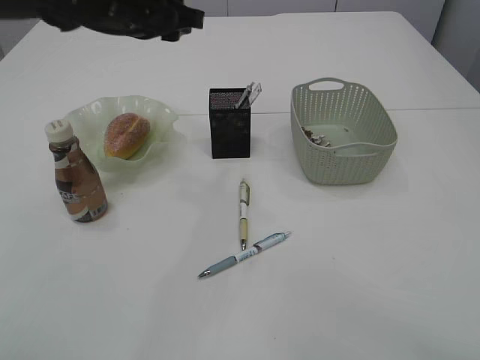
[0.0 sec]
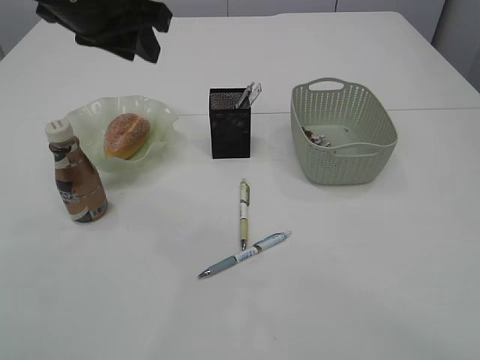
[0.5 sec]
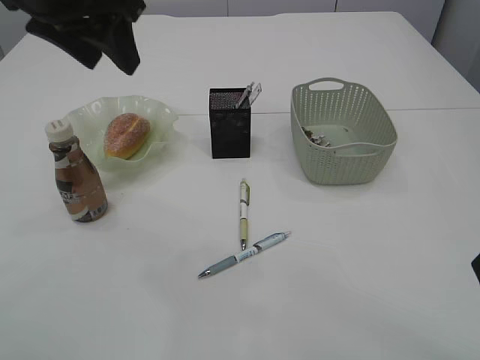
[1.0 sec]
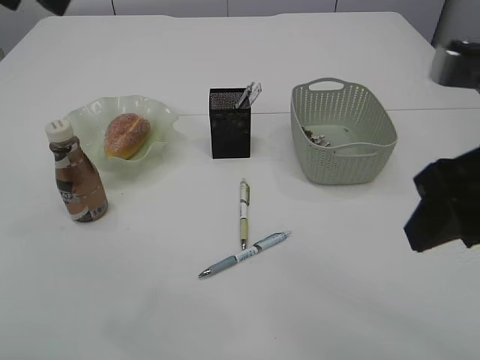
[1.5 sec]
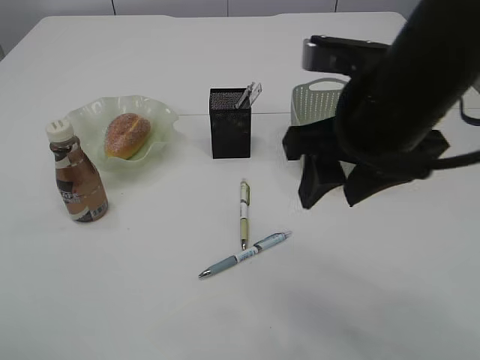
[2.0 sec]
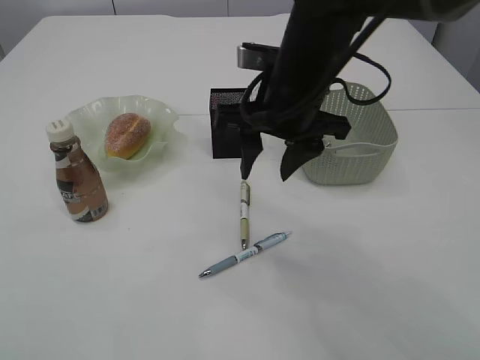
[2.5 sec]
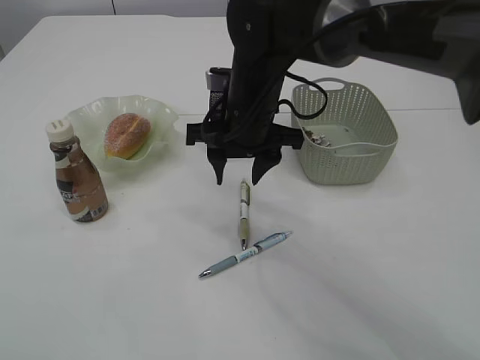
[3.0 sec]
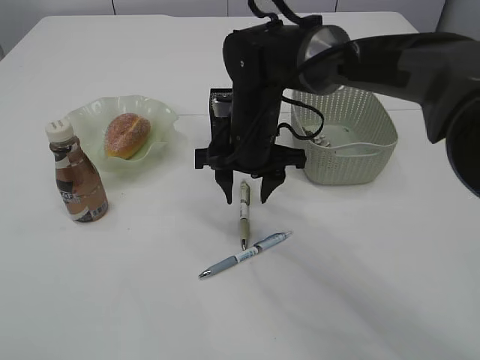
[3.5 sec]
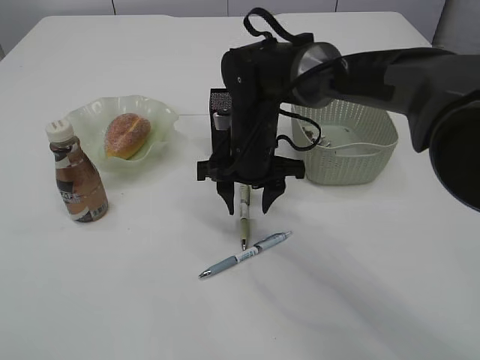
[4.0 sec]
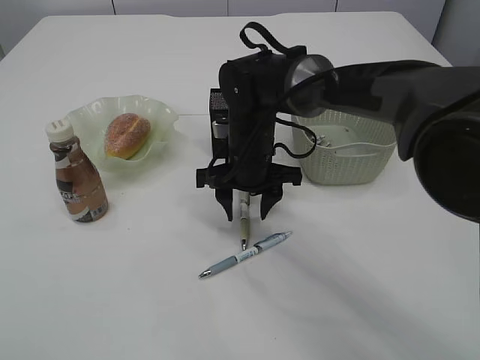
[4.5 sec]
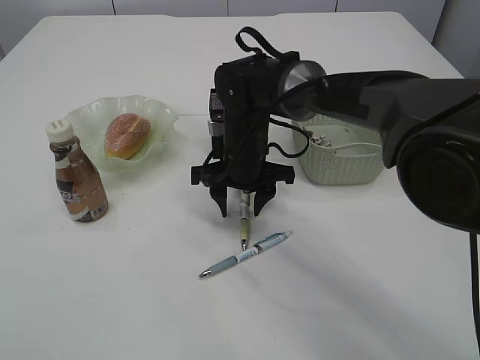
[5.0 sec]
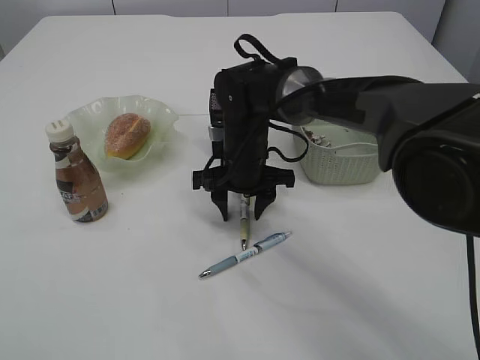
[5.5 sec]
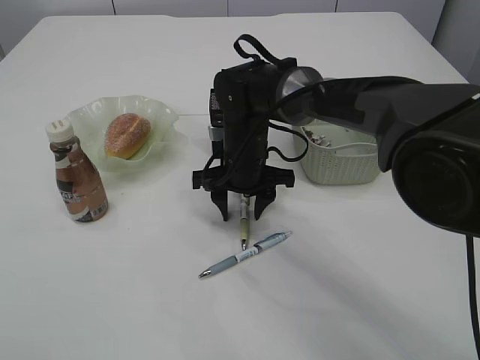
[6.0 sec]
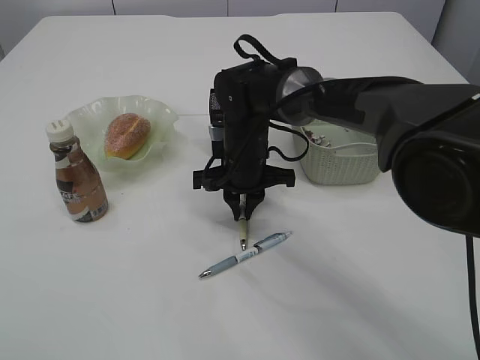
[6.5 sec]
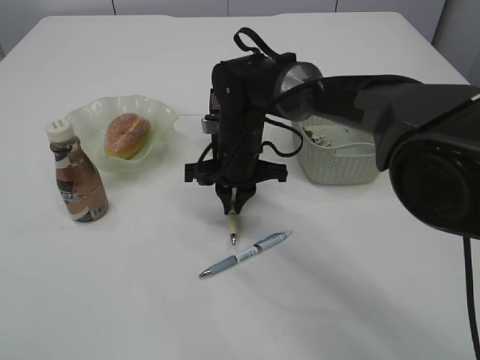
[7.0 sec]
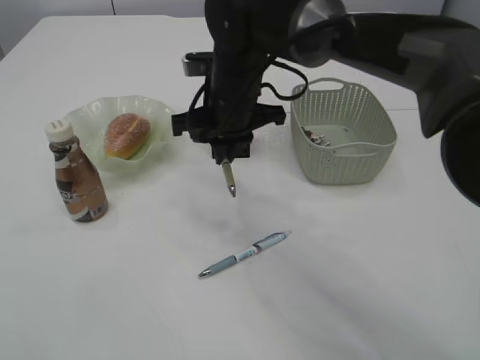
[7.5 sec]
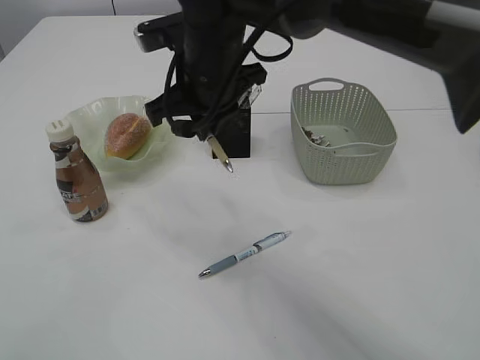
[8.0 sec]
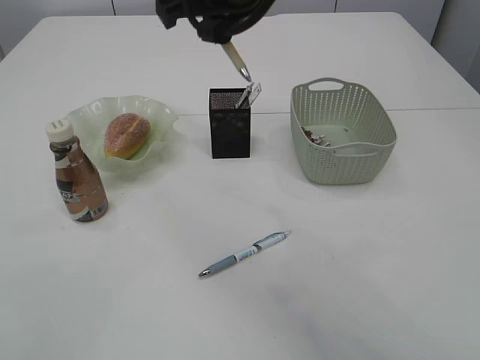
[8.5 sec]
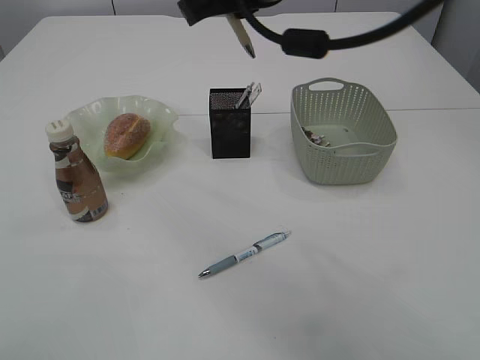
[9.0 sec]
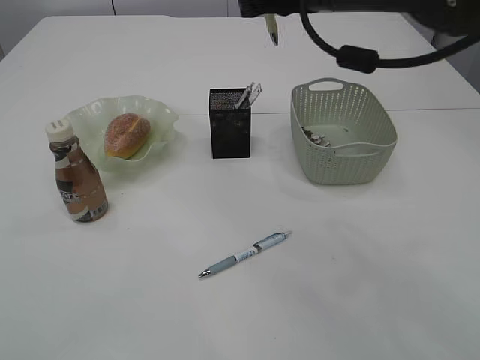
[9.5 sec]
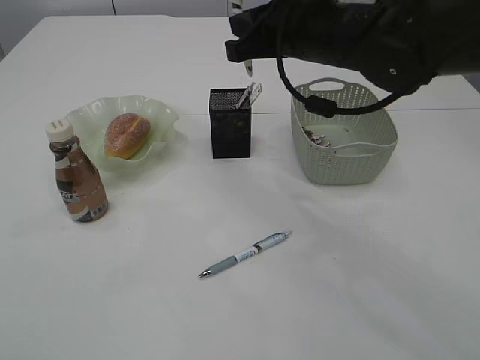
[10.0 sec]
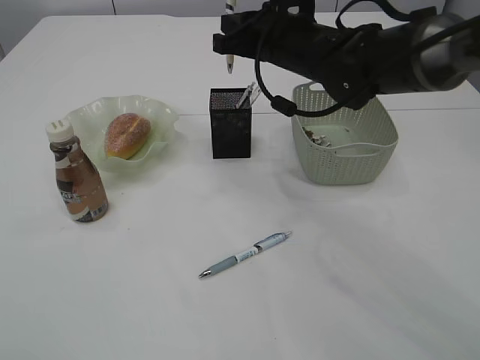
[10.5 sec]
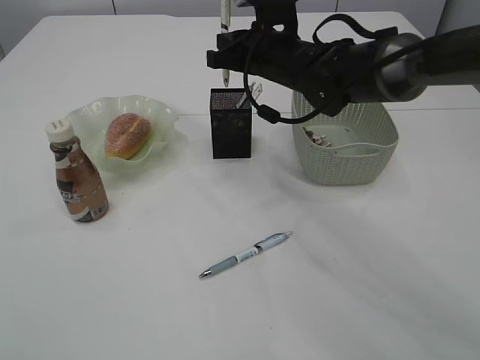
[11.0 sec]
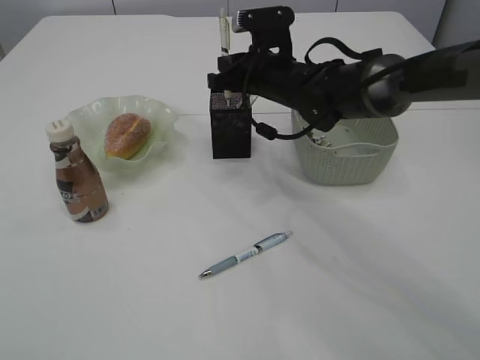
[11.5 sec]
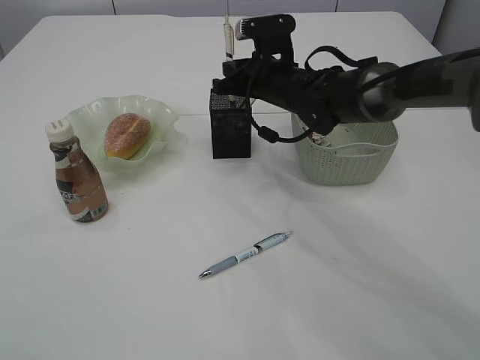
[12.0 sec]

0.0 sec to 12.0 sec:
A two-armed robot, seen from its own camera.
Step, 0.0 sec to 7.0 sec: Pick up the pen with right arm.
0.0 sec to 2.0 sec: The right gripper is displaced forward and to the left by some 15 cm. Meanwhile the left gripper shifts roughly 30 cm backward, to the left and upward.
2.0 sec to 4.0 sec: The right gripper is displaced forward, downward and to the left by approximately 25 cm; the left gripper moves backward, roughly 10 cm.
4.0 sec to 6.0 sec: The grippers make only small movements.
6.0 sec to 8.0 sec: The right gripper goes some 15 cm upward, and closes its fingers.
8.0 sec to 10.0 sec: The right gripper is displaced to the right by some 10 cm.
10.0 sec to 12.0 sec: The right gripper is displaced downward and forward by roughly 15 cm.

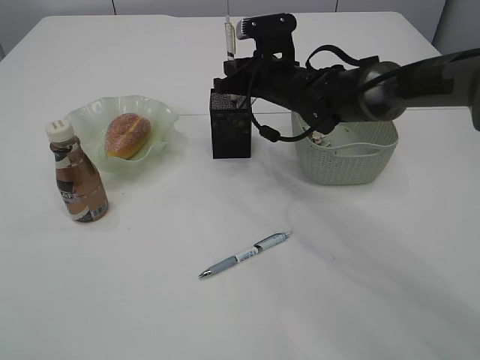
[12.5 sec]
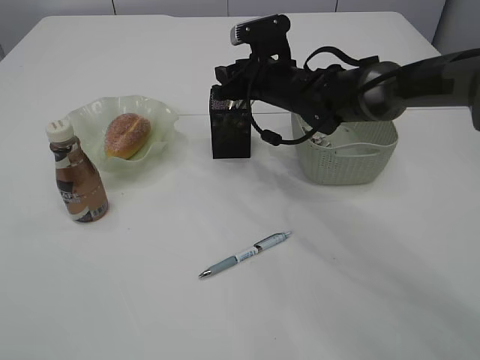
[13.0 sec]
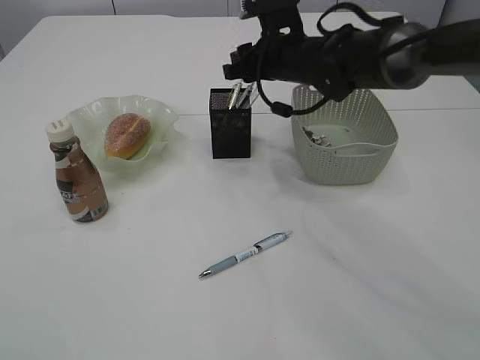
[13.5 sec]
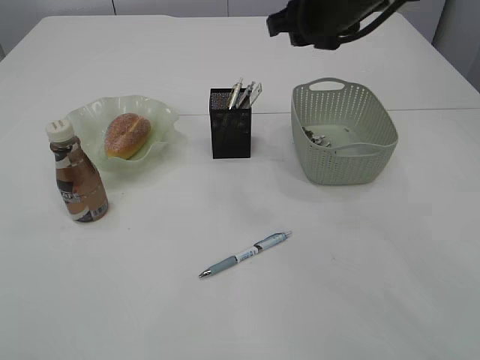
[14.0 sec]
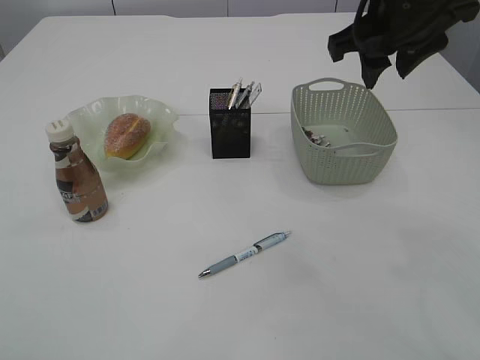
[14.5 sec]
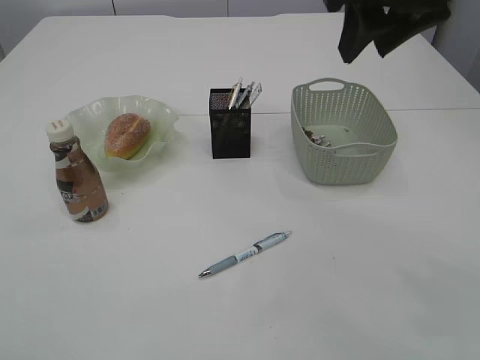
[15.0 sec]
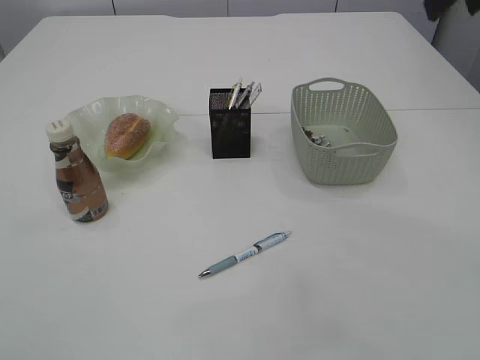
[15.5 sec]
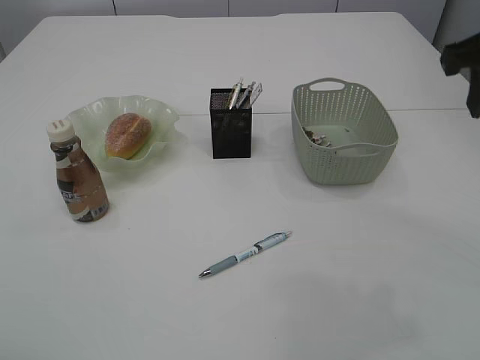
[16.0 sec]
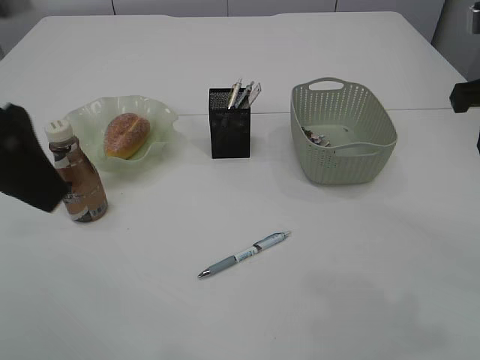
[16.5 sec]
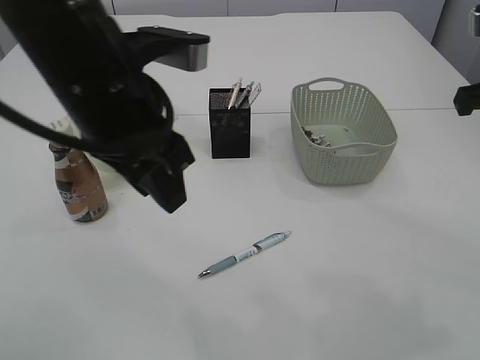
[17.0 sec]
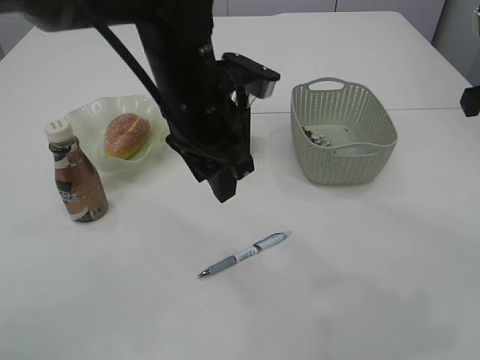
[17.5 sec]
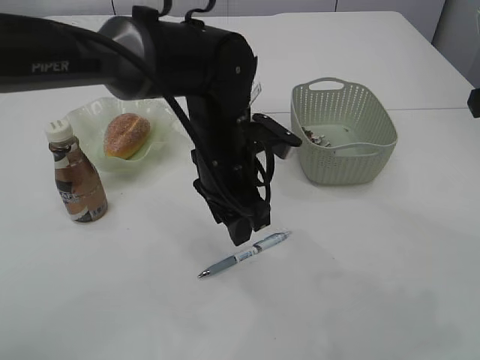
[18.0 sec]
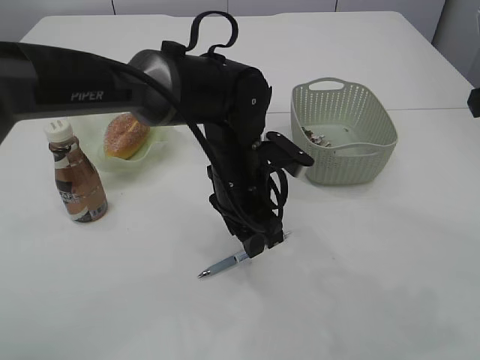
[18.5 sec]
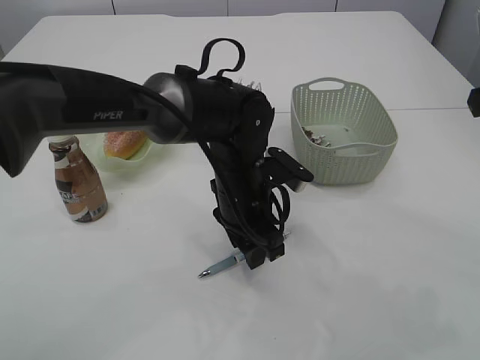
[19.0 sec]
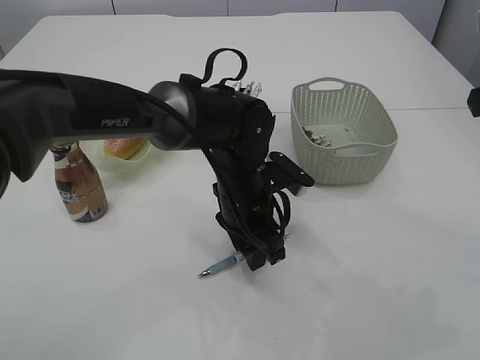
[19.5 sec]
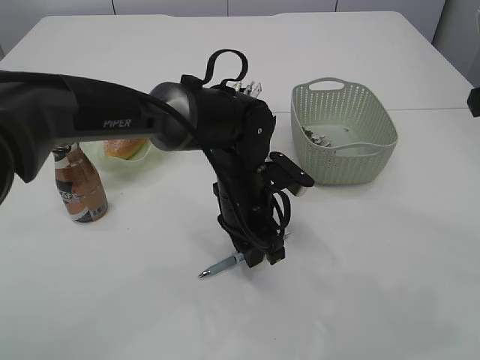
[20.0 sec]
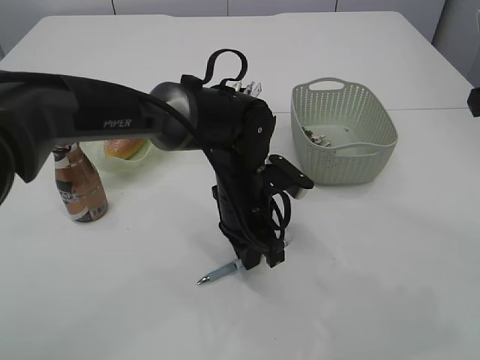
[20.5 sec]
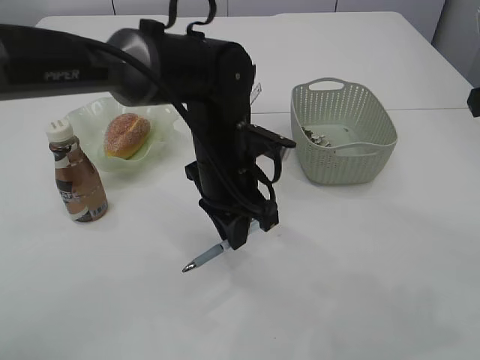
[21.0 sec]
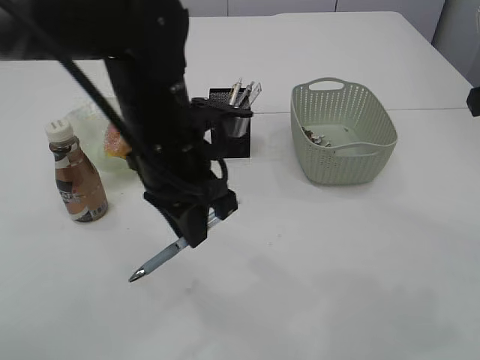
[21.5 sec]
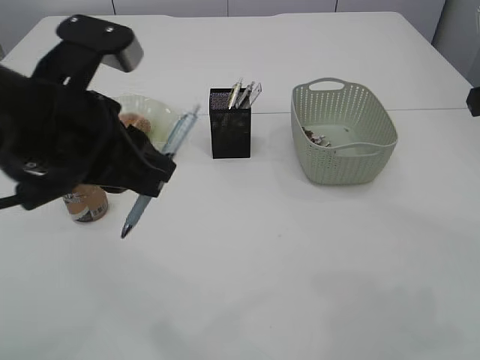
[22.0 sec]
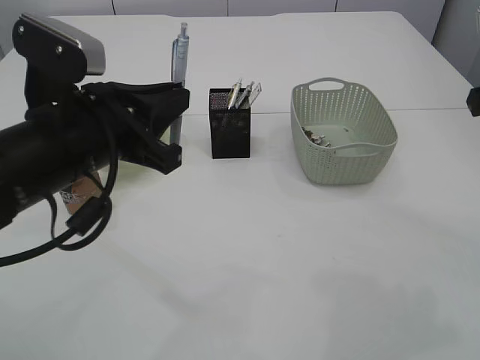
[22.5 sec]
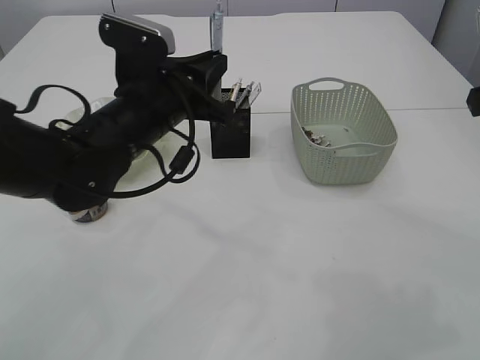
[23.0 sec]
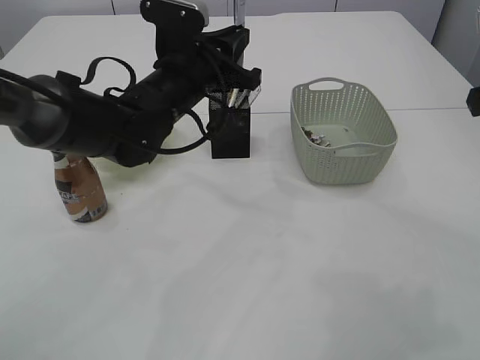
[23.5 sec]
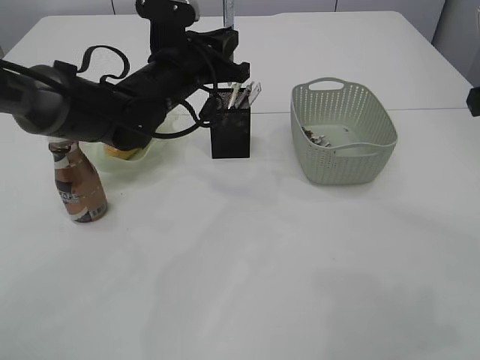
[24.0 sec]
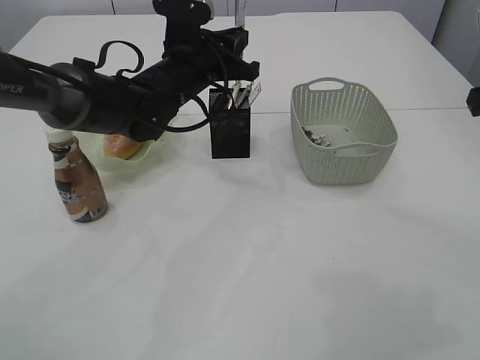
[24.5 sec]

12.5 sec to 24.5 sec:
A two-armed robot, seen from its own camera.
Step, 14.0 sec to 21.0 sec: Pick up the pen with left arm.
12.5 sec to 14.5 sec: The right gripper goes about 20 cm upward, backward and to the right, and opens up.
14.5 sec to 16.5 sec: The right gripper heads to the right and backward, covering approximately 10 cm. Meanwhile the left gripper is displaced forward, to the right and downward by about 15 cm.
16.5 sec to 18.5 sec: The left gripper moves downward, to the right and forward, roughly 30 cm.
18.5 sec to 20.5 sec: The left gripper closes.
20.5 sec to 22.5 sec: The left gripper travels to the left, upward and backward by some 20 cm.
22.5 sec to 24.5 sec: The left gripper heads forward and to the right, covering some 20 cm.

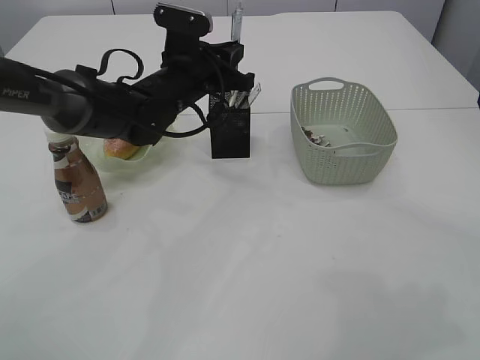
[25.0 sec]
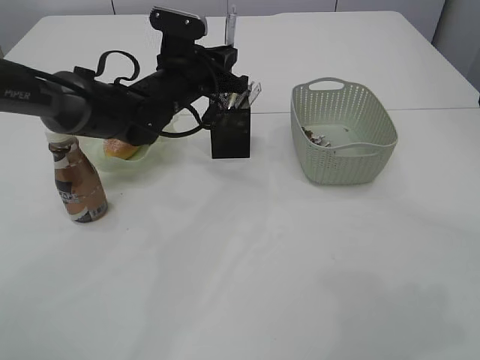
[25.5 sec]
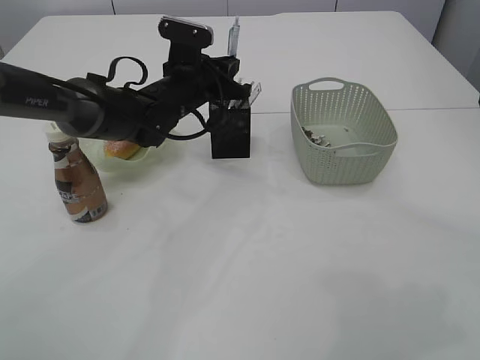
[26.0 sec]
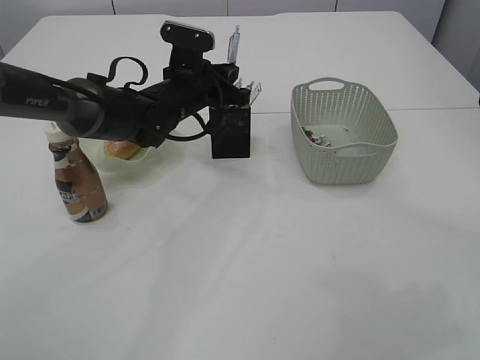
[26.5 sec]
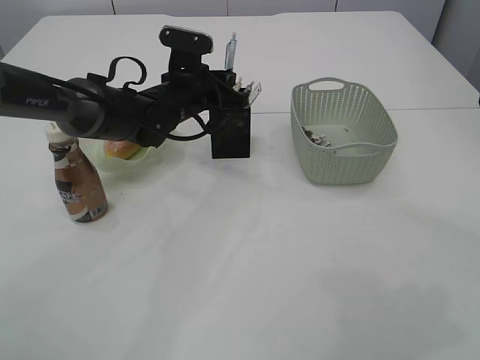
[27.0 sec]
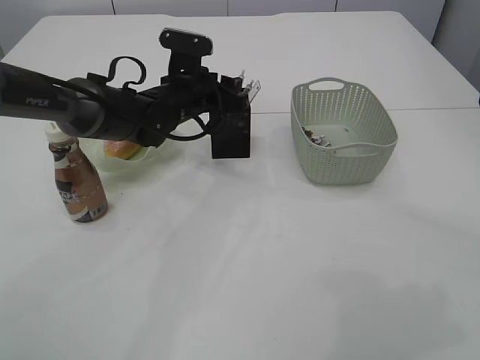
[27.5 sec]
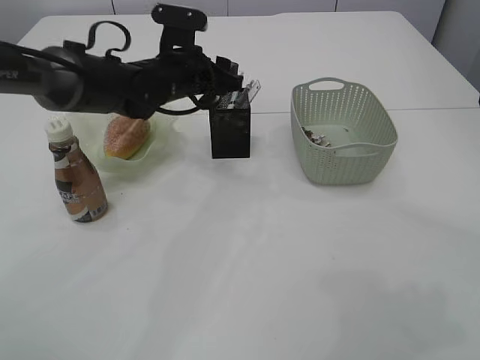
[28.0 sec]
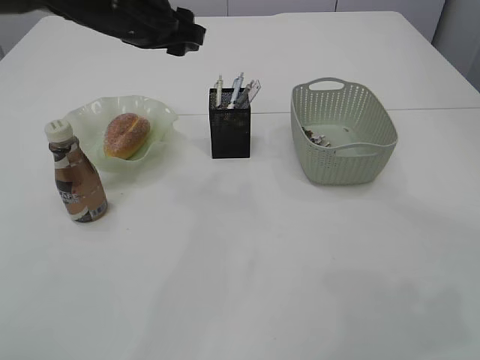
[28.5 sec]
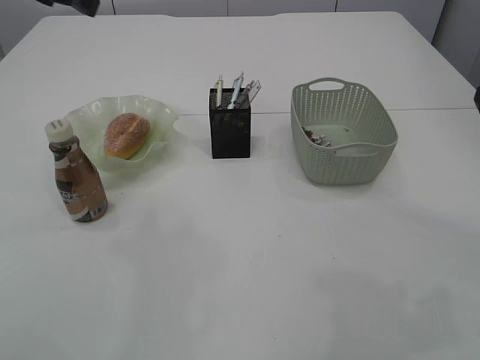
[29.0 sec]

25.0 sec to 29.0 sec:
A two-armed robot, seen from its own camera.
Step, 25.0 sec to 28.0 sec: Place the pen into the pen holder.
25.0 sec to 27.0 sec: The grippers make only small movements.
27.0 sec to 29.0 sec: The left gripper shifts roughly 25 cm upward, to the left and backward, and opens. Meanwhile the right gripper opens up.
